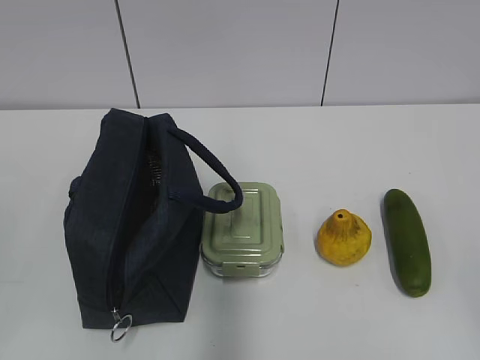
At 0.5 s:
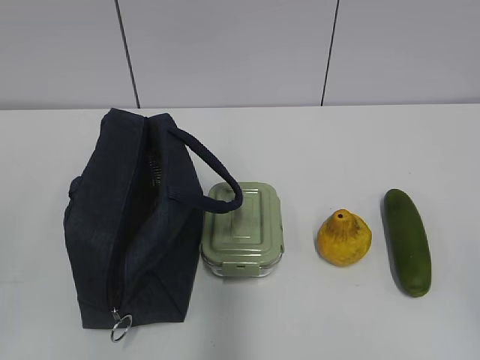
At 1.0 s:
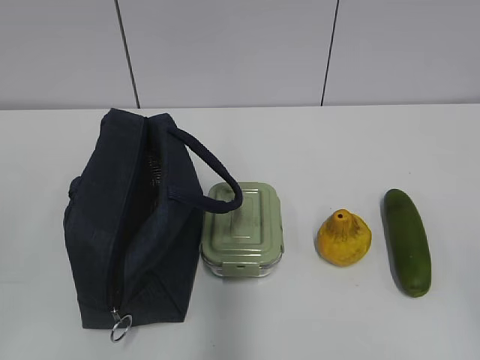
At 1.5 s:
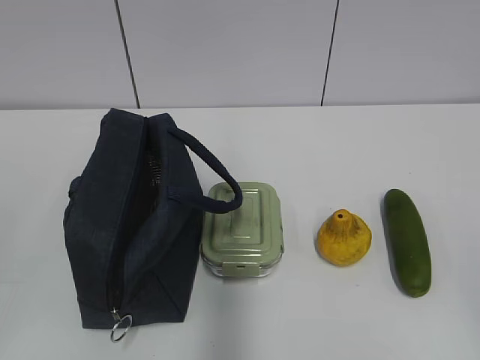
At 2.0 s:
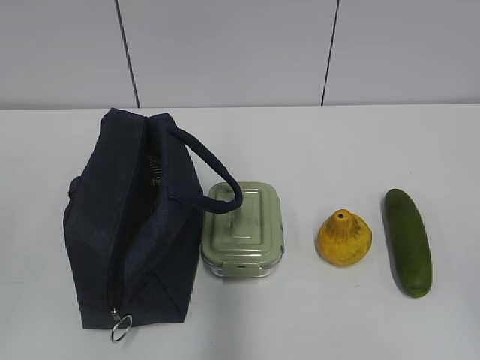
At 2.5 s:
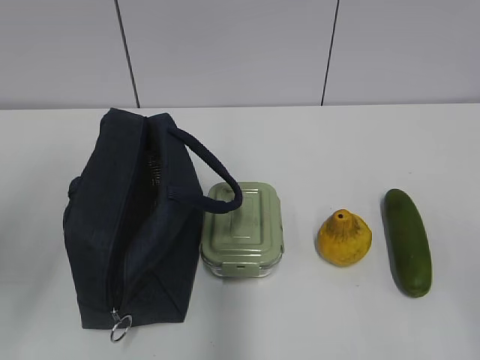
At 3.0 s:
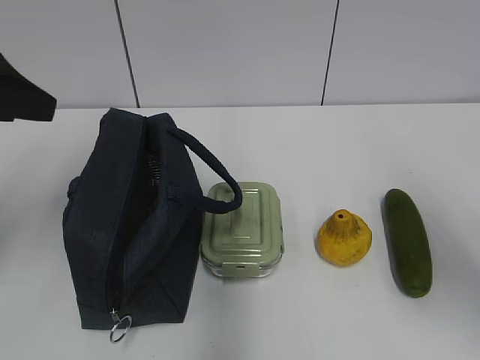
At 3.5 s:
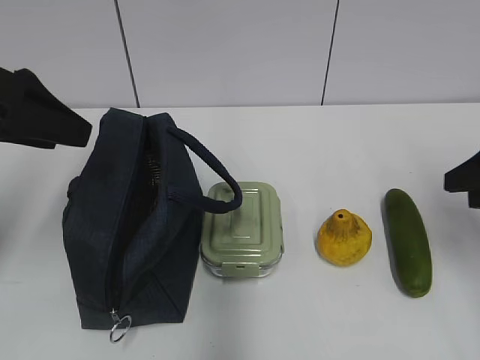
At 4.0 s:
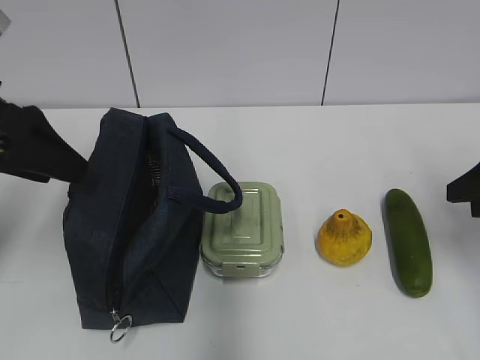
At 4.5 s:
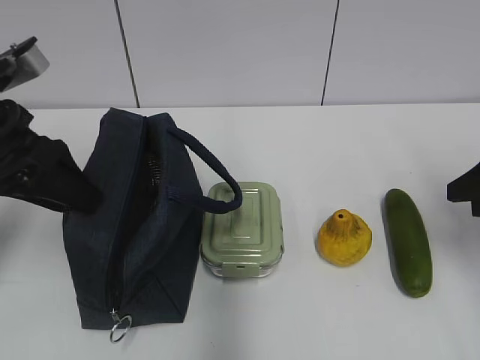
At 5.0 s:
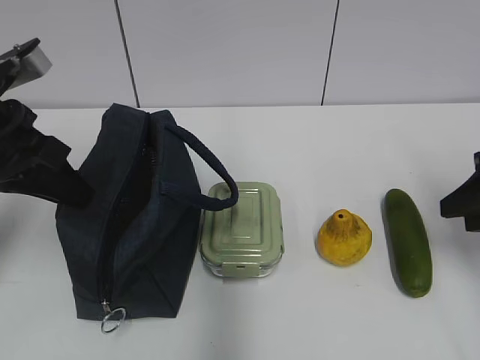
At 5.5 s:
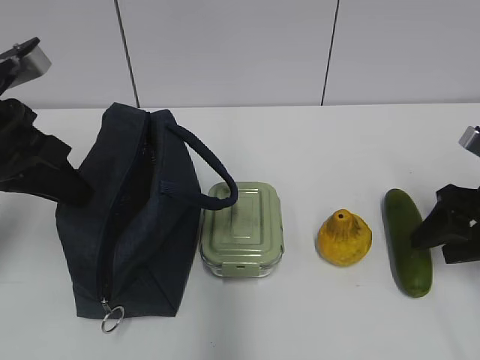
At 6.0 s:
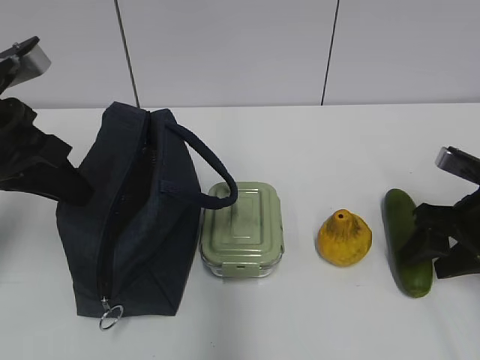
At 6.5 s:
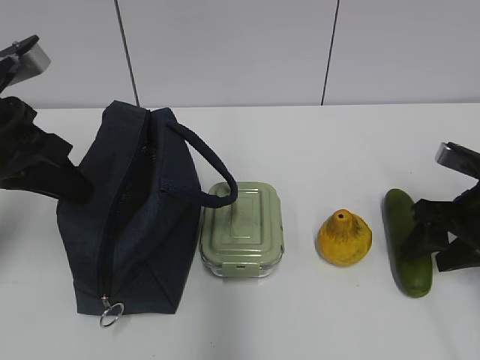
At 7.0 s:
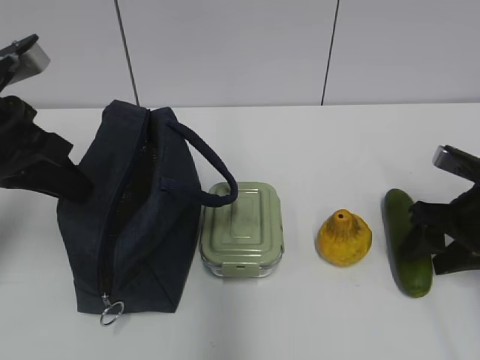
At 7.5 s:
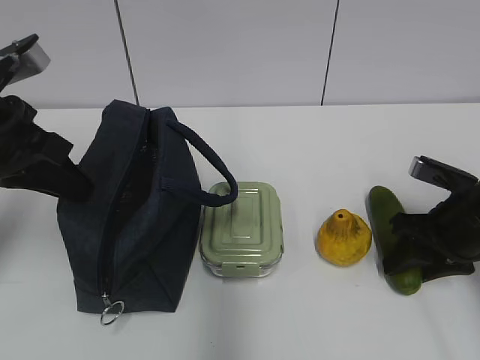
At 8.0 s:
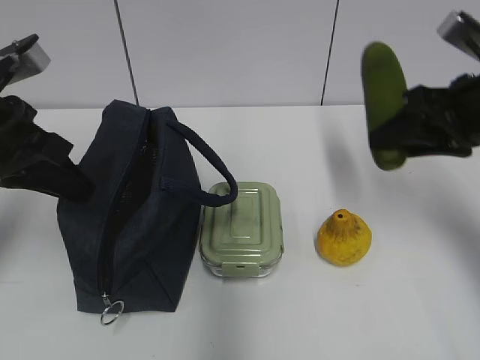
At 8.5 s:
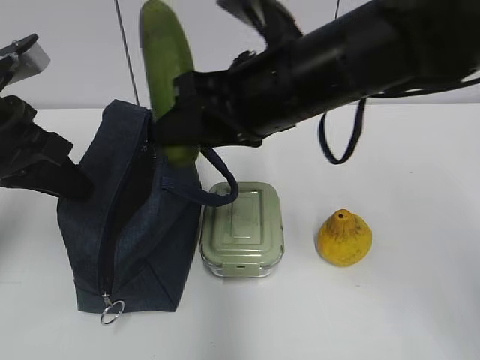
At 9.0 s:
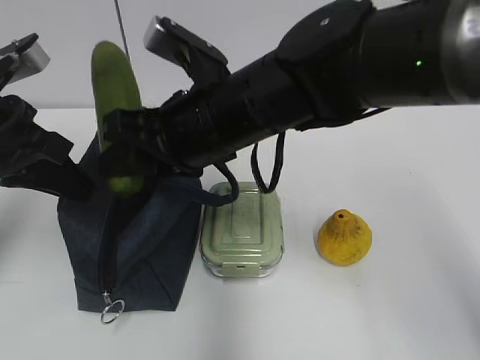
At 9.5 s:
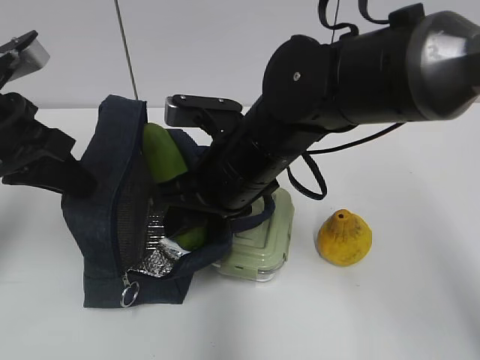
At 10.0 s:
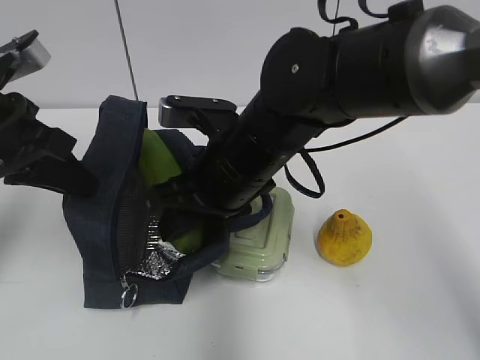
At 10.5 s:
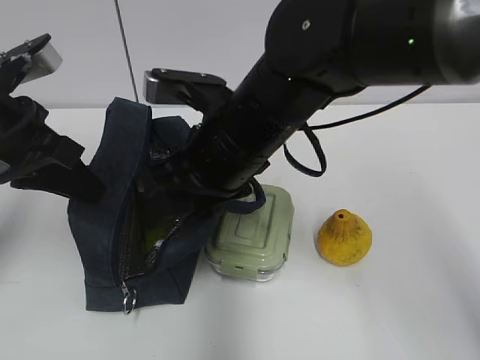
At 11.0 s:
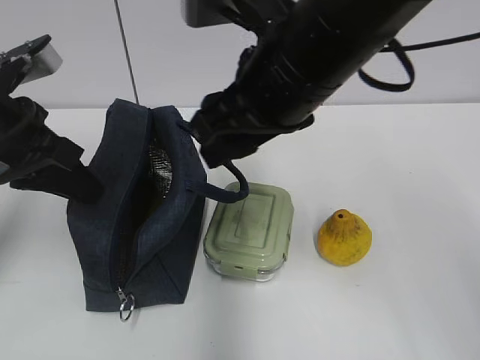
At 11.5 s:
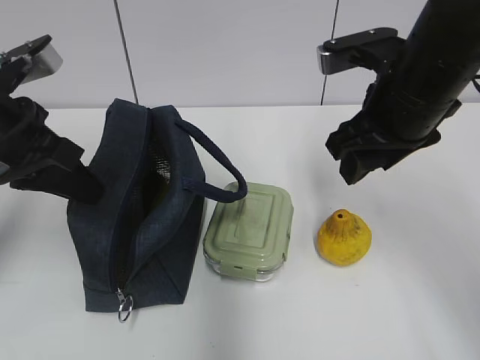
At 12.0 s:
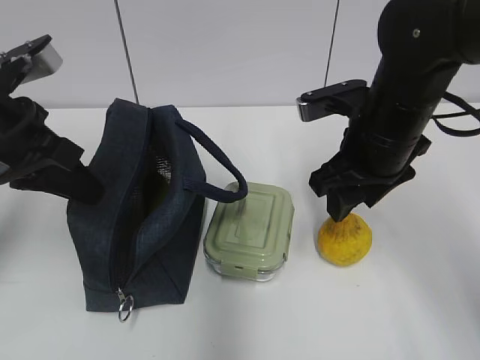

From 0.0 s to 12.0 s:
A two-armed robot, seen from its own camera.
Step, from 0.0 s to 7.0 s: Grab the cucumber with your right hand.
Step, from 9.5 s to 10.5 s: Place it into the bag with your right hand.
From 2.0 s to 4.0 s: The two grippers go about 25 cm forward. The left gripper opens.
From 4.0 s to 6.0 s: The left gripper closes up. Meanwhile the right gripper is displaced downward by approximately 10 cm.
From 6.0 s to 8.0 s: The right gripper heads upward, covering roughly 10 cm.
From 8.0 s to 10.0 s: The right gripper goes roughly 25 cm to the left.
From 10.0 s to 12.0 s: The right gripper shifts some 15 cm to the right.

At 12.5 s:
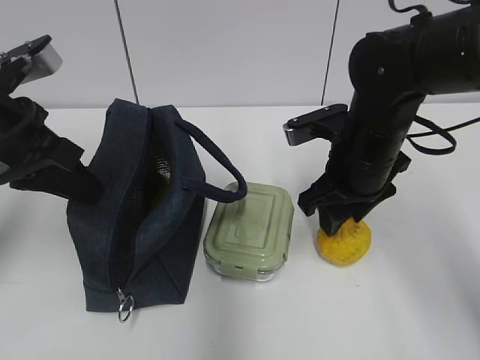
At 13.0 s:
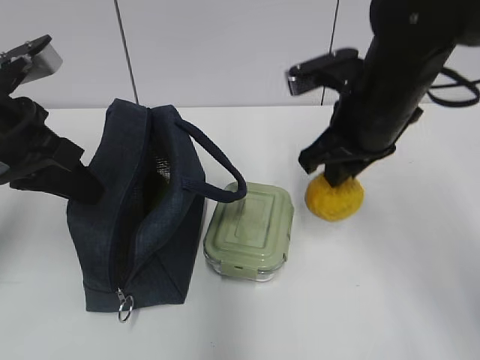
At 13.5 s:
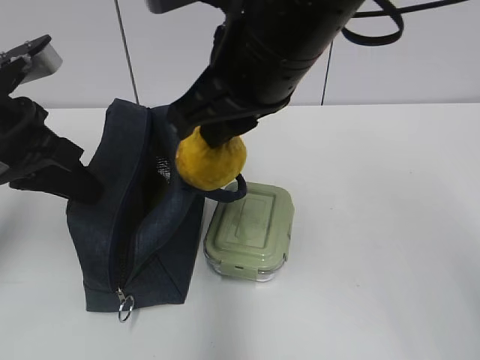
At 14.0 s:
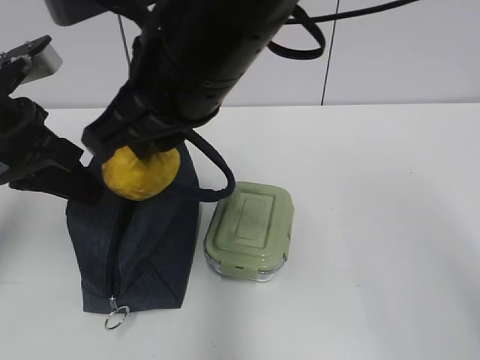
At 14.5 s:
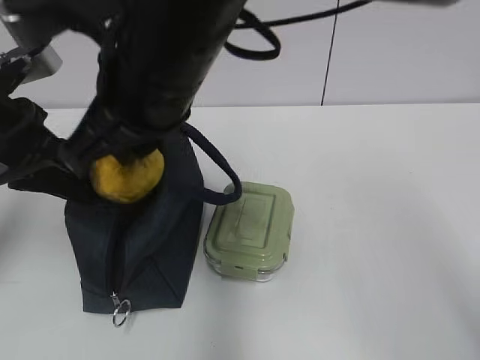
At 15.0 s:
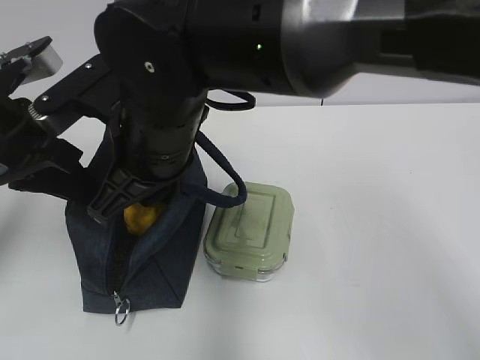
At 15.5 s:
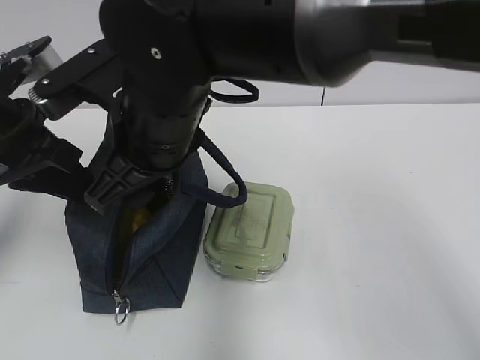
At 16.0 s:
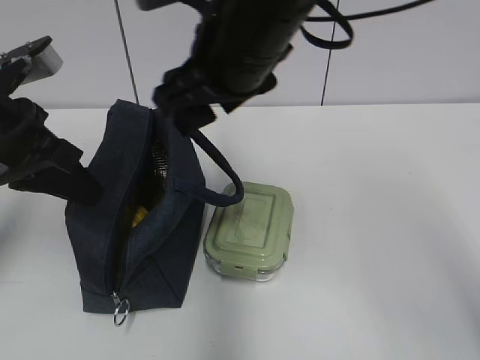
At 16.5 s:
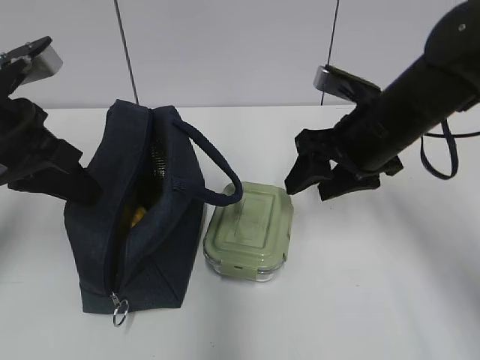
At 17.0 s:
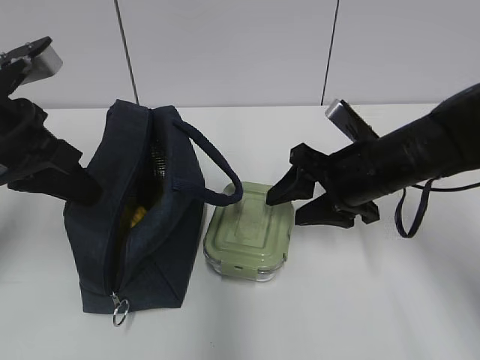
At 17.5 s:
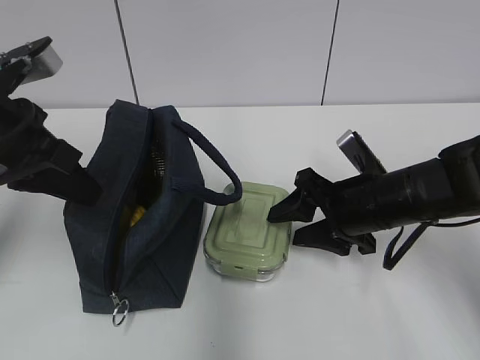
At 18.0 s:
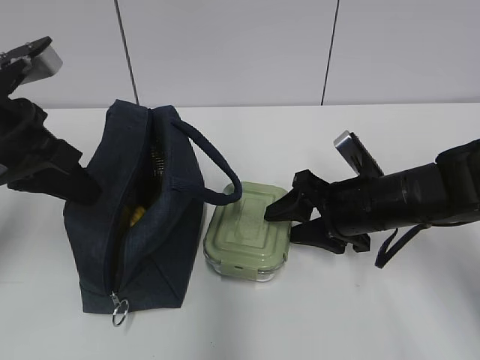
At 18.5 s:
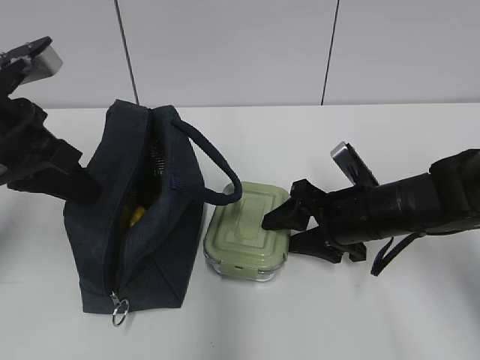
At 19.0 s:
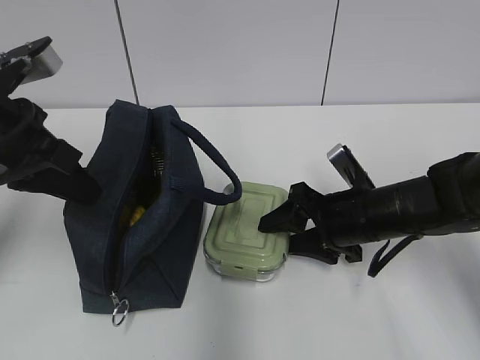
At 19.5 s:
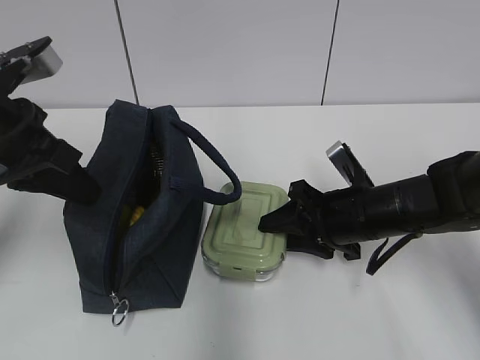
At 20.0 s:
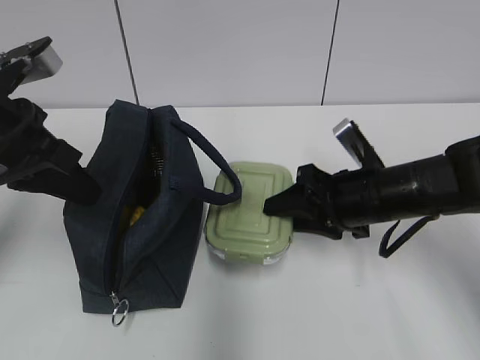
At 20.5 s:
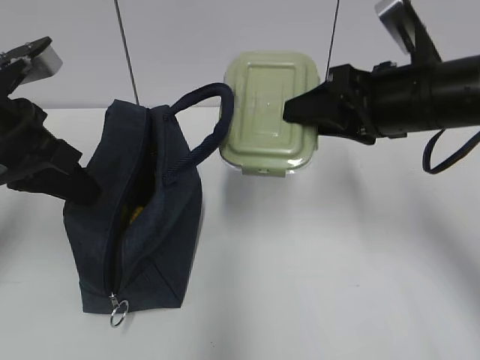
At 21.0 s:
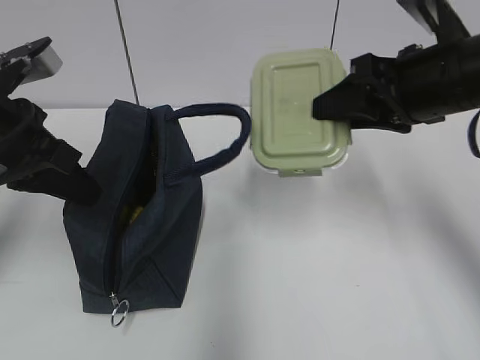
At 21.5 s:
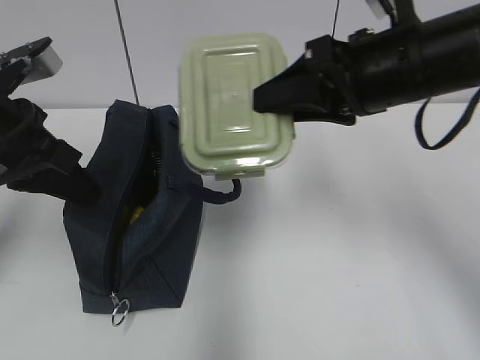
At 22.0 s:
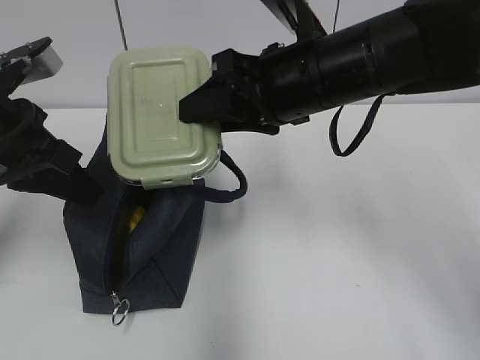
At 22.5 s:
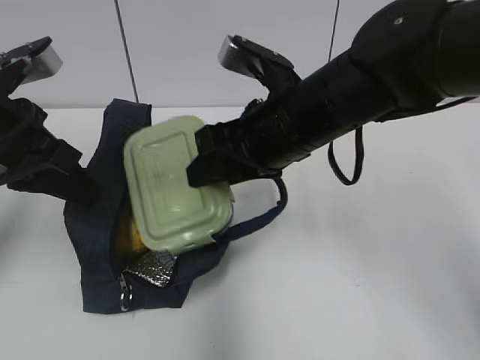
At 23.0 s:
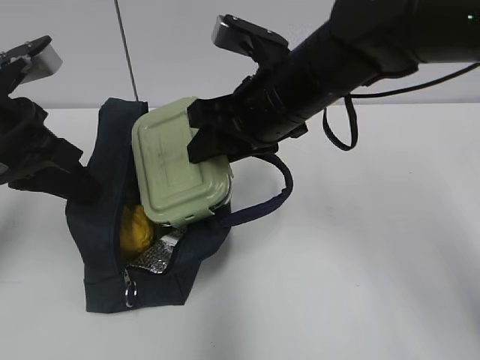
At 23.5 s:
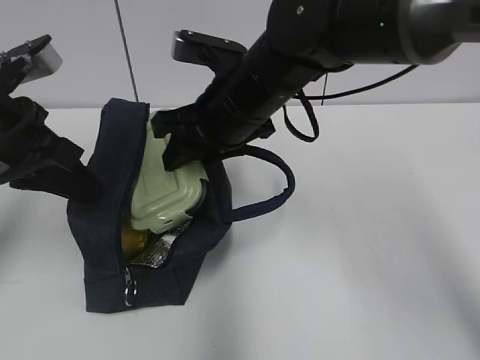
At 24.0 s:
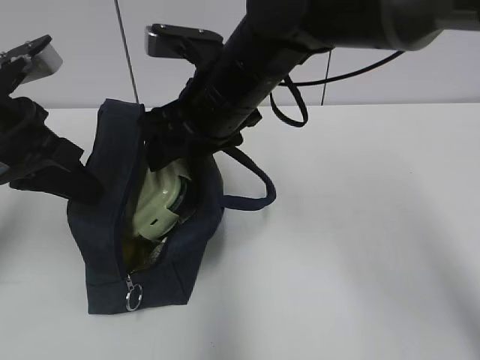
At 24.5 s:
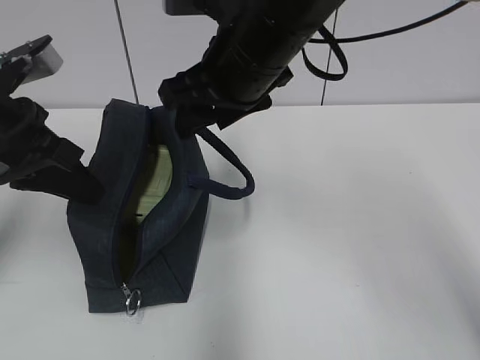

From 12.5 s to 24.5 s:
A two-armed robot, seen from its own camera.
Step, from 13.0 s to 15.5 s: Place it into the bag with your right hand.
Step, from 16.0 s to 19.5 s: Grab the lunch box with your right hand.
From 12.5 s to 14.5 s: The right gripper shifts roughly 20 cm to the left and upward, and closes up.
From 14.5 s to 16.5 s: The right gripper shifts about 25 cm to the right and downward, and opens its fingers.
From 16.5 s to 18.5 s: The right gripper travels downward by approximately 10 cm.
From 18.5 s to 20.5 s: The right gripper travels upward by some 15 cm.
From 20.5 s to 22.5 s: The right gripper is displaced to the left by approximately 10 cm.
From 22.5 s to 24.5 s: The right gripper heads upward, covering approximately 5 cm.

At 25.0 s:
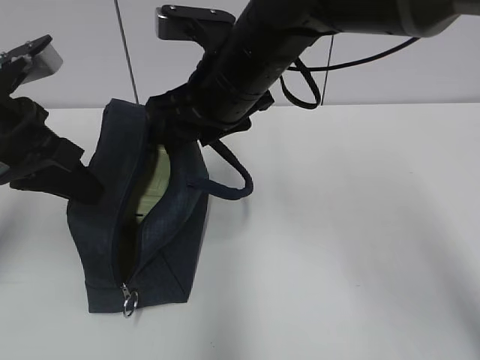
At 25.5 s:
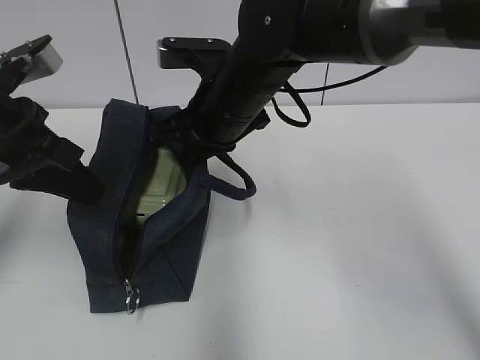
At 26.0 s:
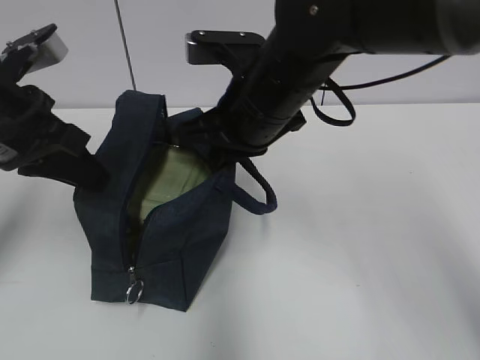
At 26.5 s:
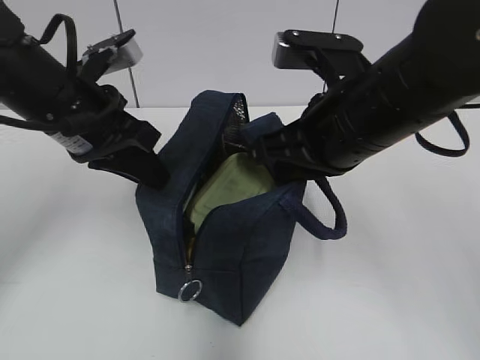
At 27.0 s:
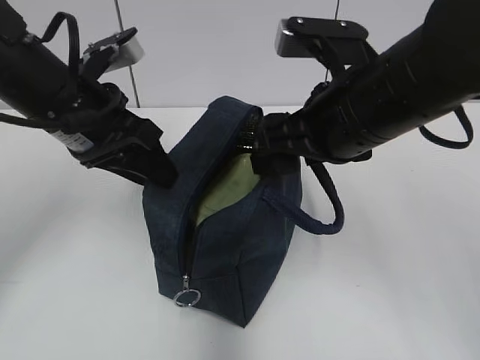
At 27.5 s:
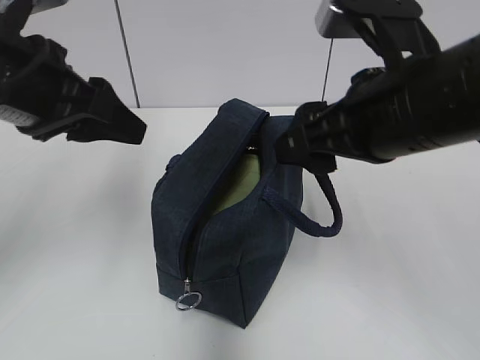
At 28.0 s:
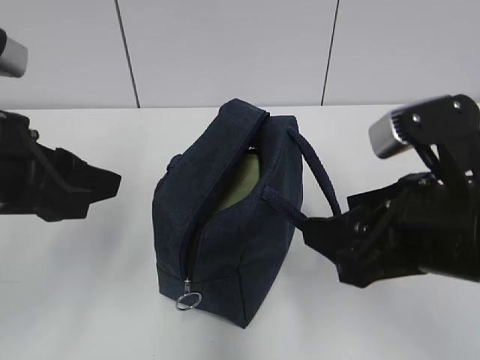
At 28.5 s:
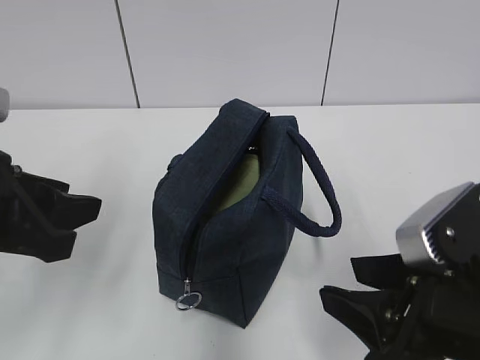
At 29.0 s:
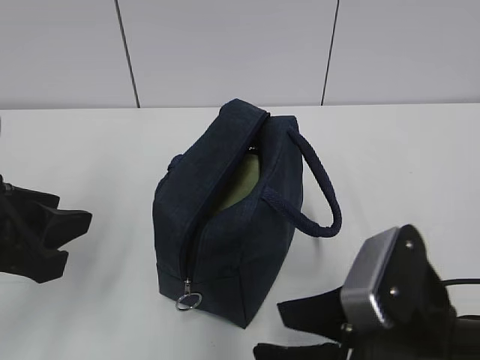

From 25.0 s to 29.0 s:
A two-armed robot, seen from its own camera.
Step, from 26.0 s to 26.5 s: Move the lunch bag to the right.
From 25.0 s to 27.0 s: The left gripper is displaced to the right by some 5 cm, and opens up, while the right gripper shifts approximately 10 cm to the right and backward, and closes and opens again.
From 27.0 s to 29.0 s: The left gripper is displaced backward and to the left by about 15 cm; the right gripper heads backward and downward, covering about 20 cm.
